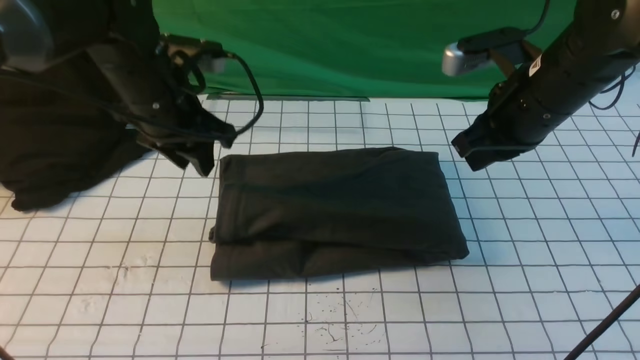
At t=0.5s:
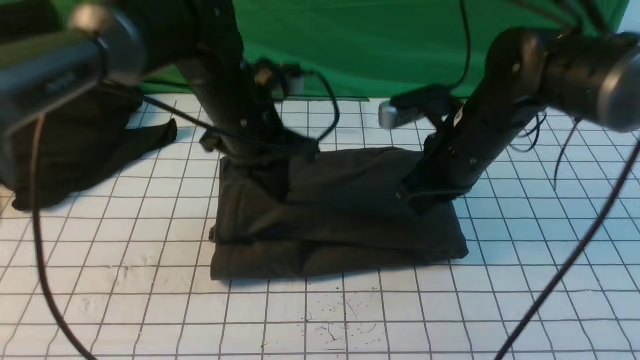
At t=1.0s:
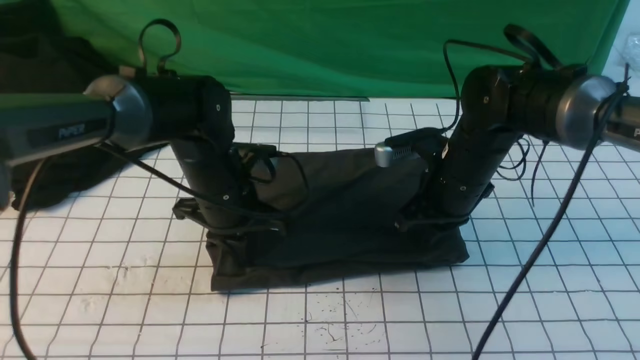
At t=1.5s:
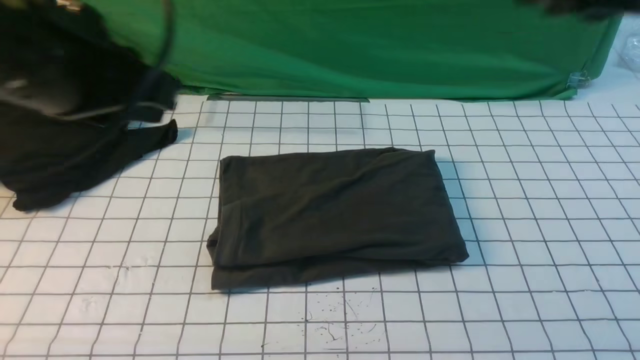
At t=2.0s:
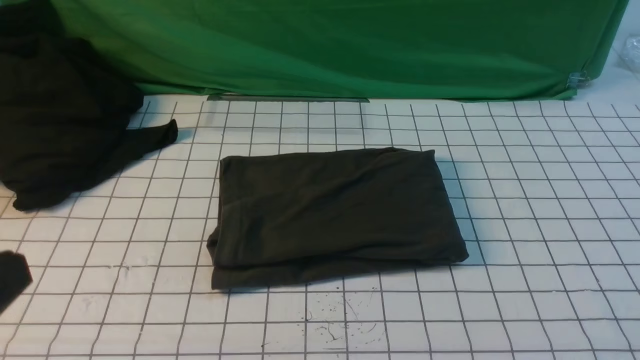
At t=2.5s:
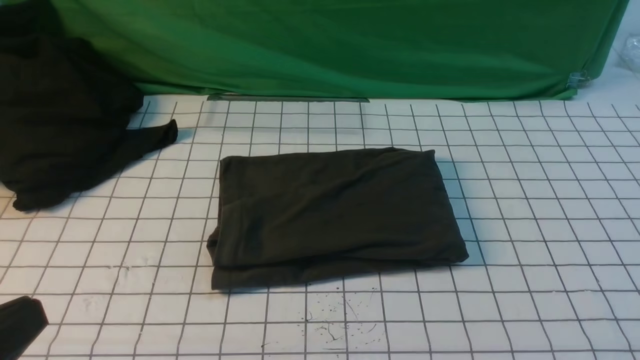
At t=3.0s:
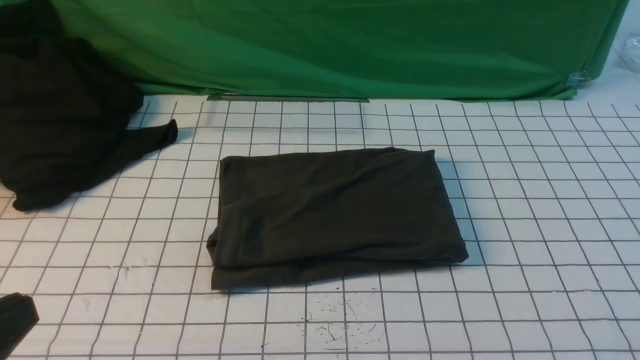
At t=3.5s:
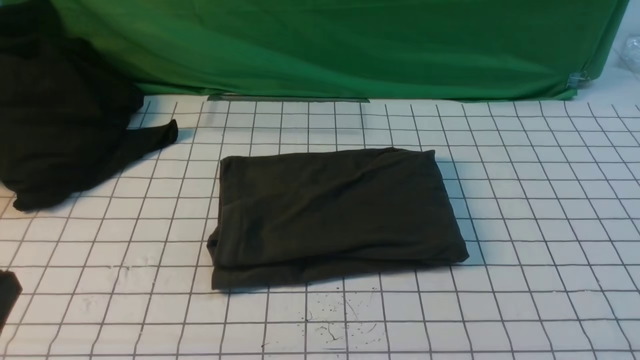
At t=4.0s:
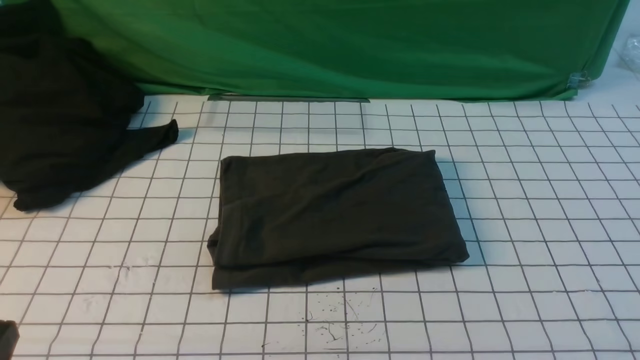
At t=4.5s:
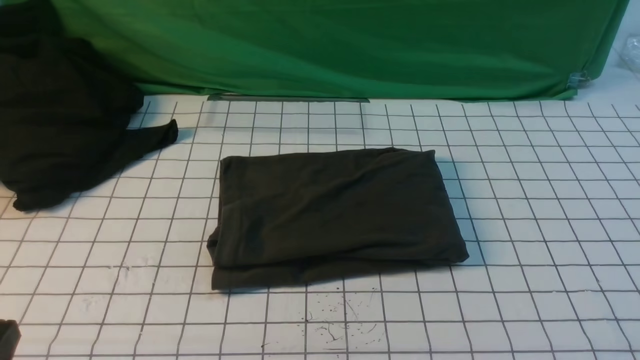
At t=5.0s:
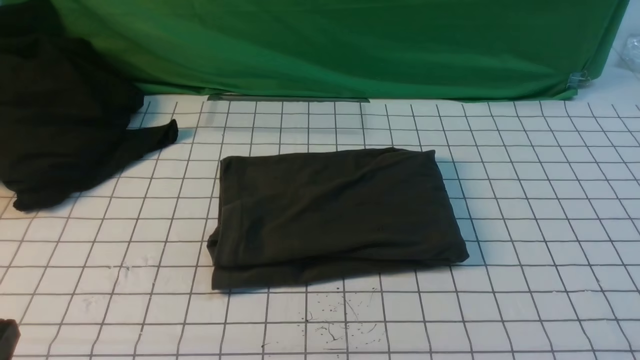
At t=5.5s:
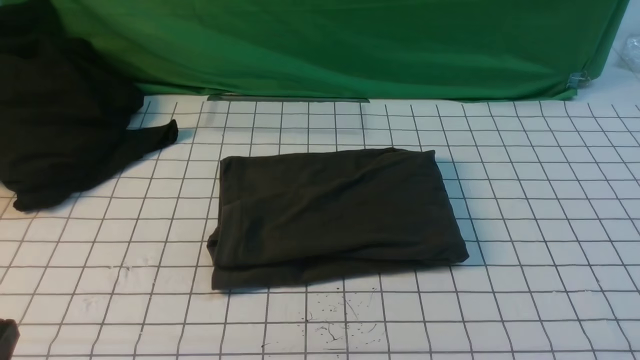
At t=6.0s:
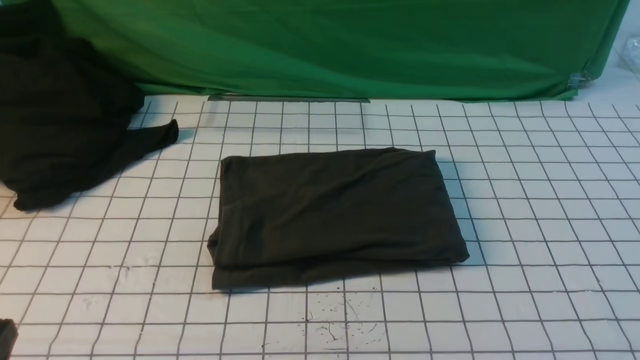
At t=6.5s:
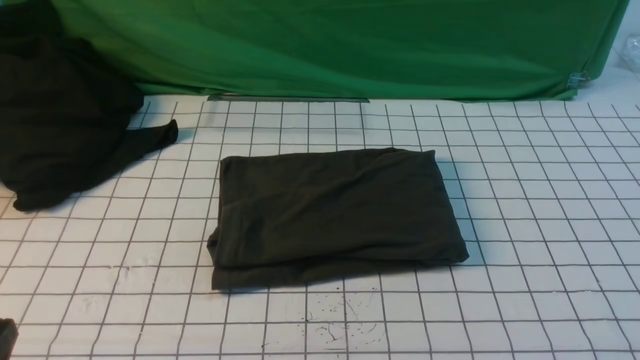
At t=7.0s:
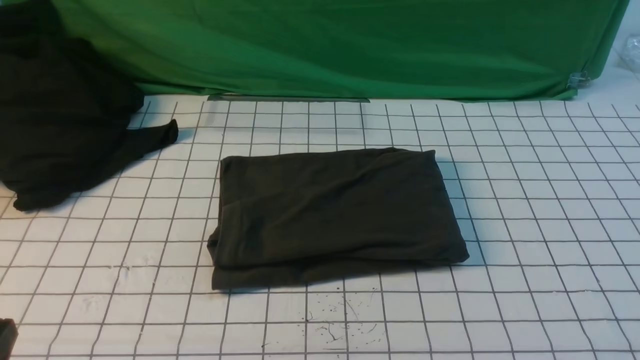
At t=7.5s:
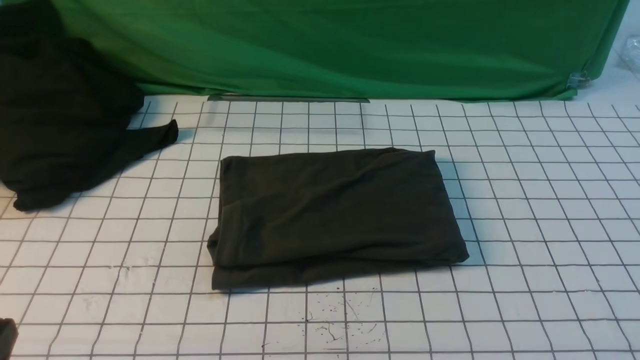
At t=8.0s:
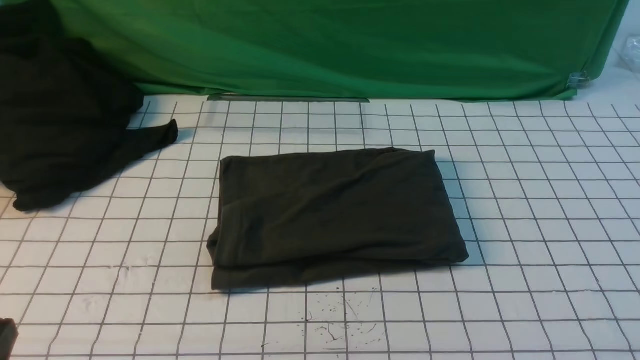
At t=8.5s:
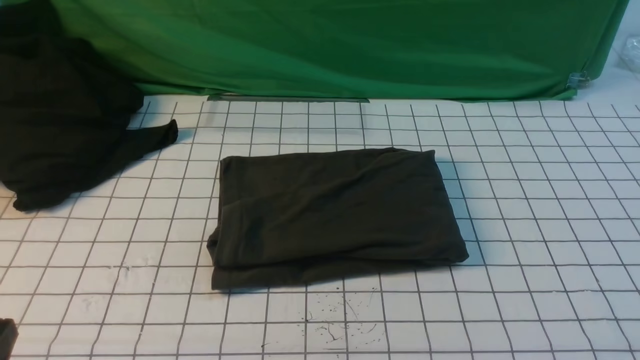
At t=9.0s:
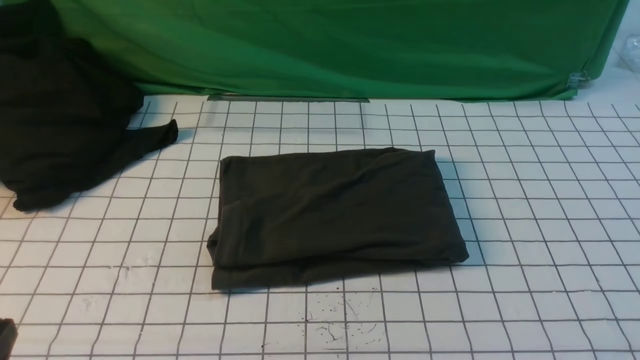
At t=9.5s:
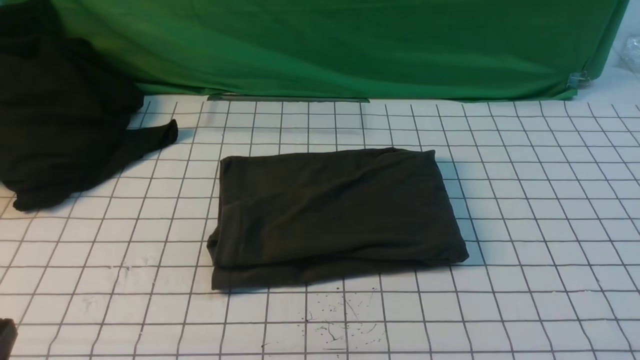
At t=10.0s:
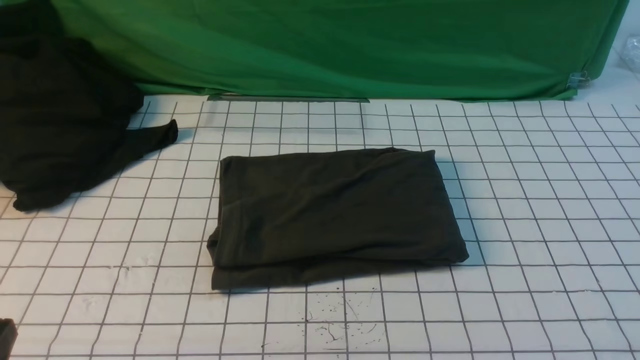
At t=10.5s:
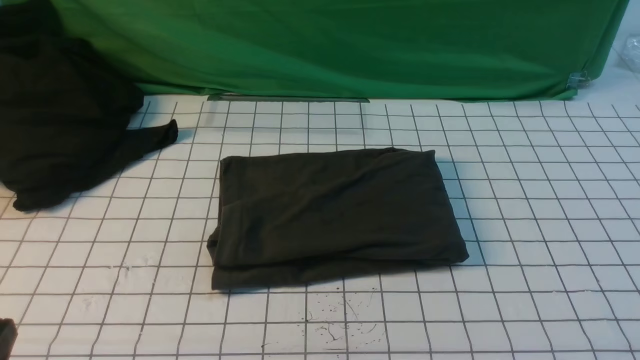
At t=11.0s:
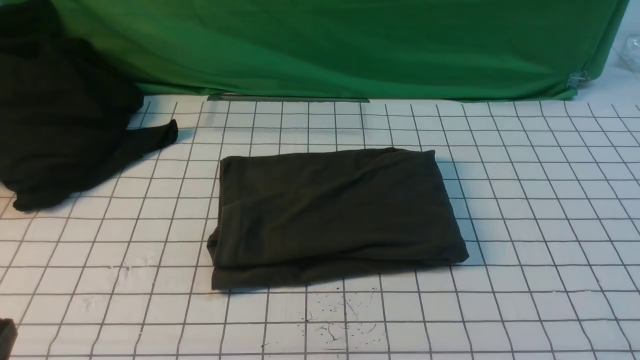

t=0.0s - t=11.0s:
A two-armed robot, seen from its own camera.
t=0.0s - t=2.0s: The two grippers go about 30 cm backward. The left gripper closes up.
t=3.5s - t=5.5s: The left gripper heads downward, covering roughly 5 cm.
t=9.0s - t=11.0s: The two grippers keep their place.

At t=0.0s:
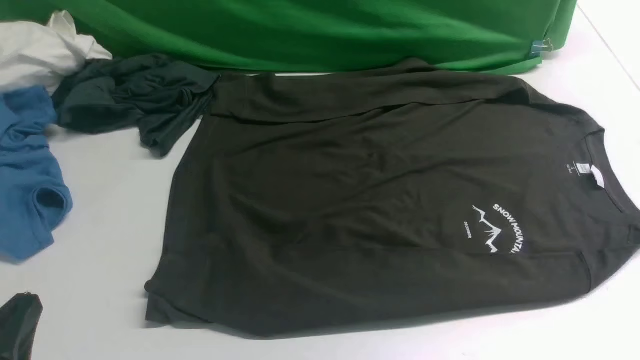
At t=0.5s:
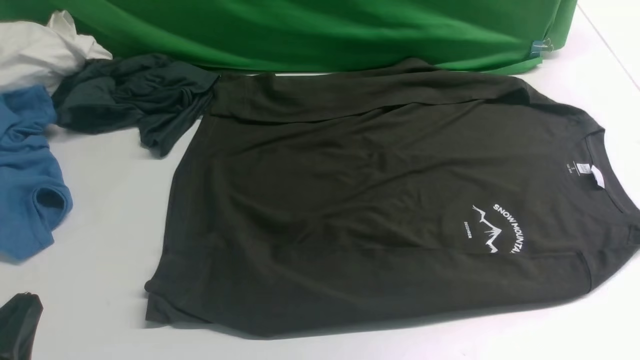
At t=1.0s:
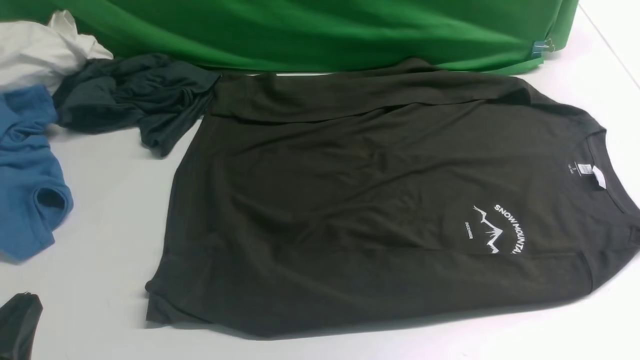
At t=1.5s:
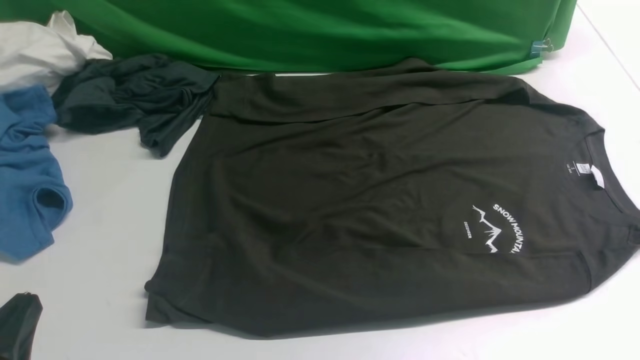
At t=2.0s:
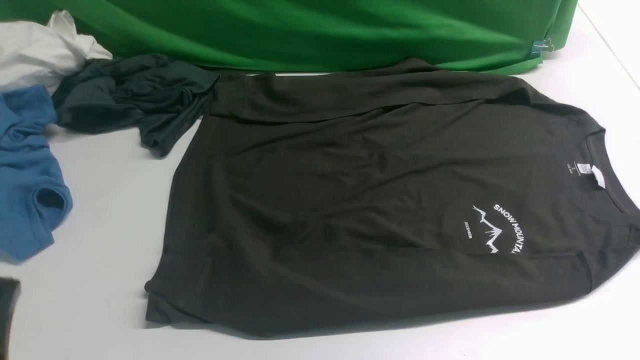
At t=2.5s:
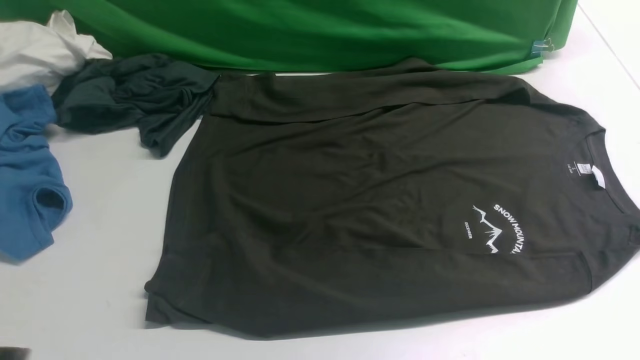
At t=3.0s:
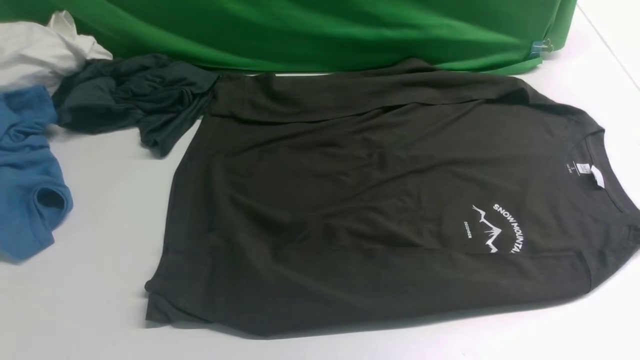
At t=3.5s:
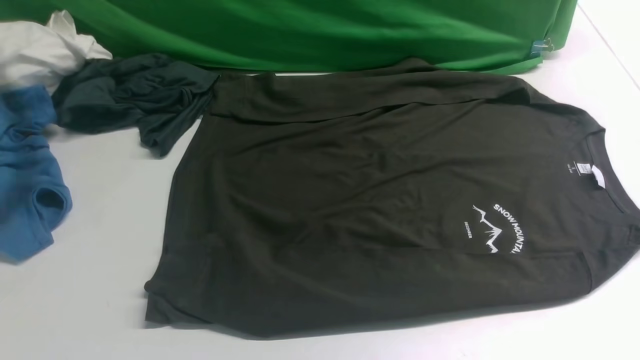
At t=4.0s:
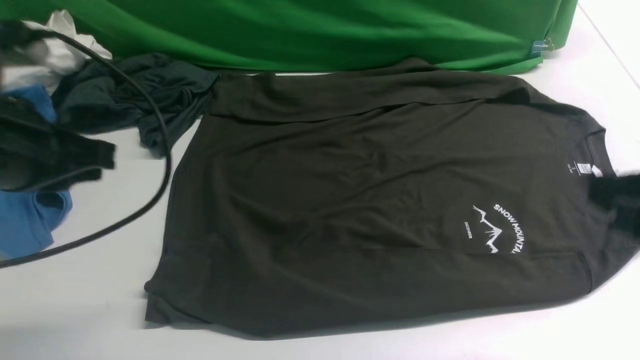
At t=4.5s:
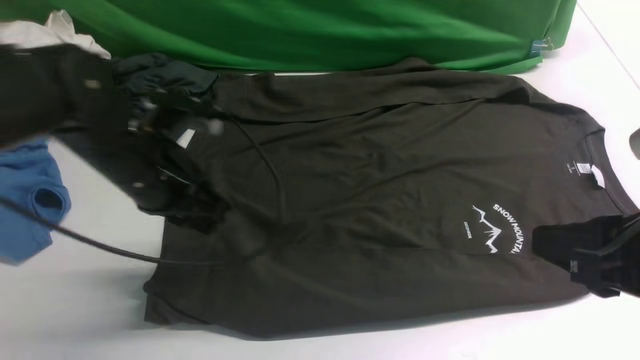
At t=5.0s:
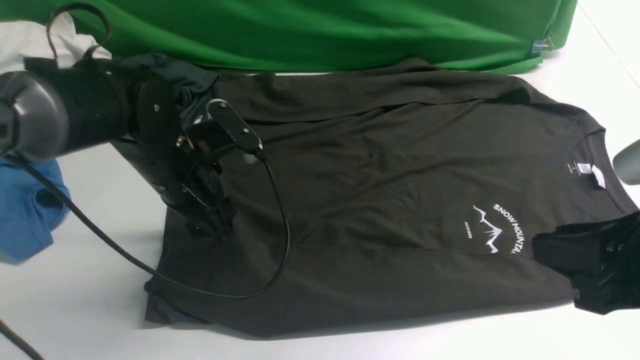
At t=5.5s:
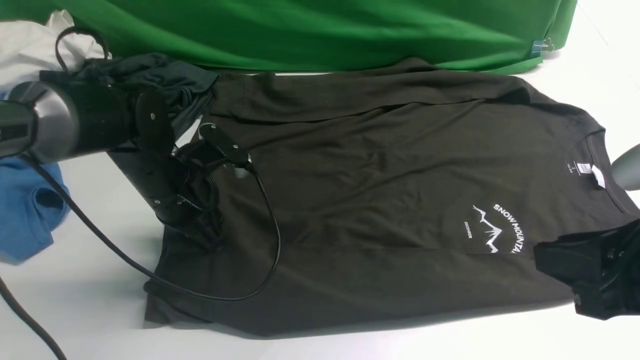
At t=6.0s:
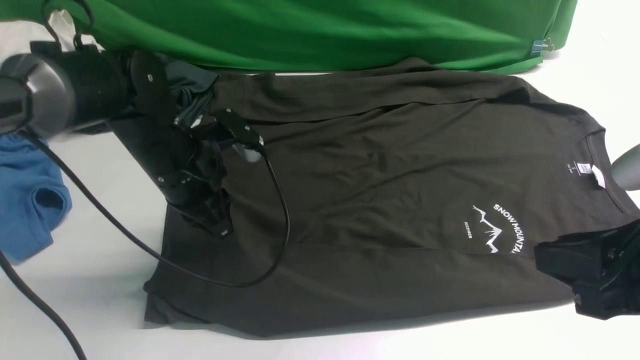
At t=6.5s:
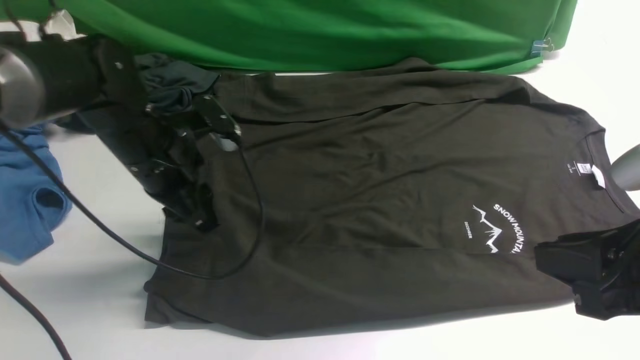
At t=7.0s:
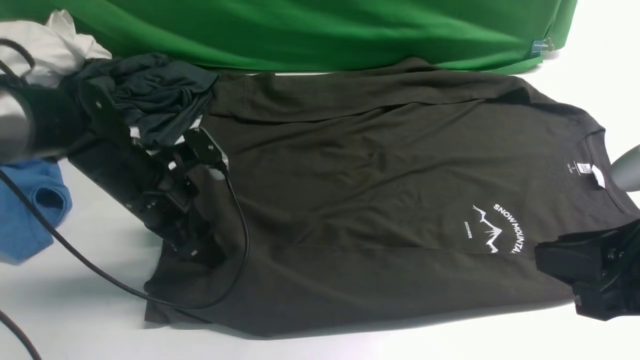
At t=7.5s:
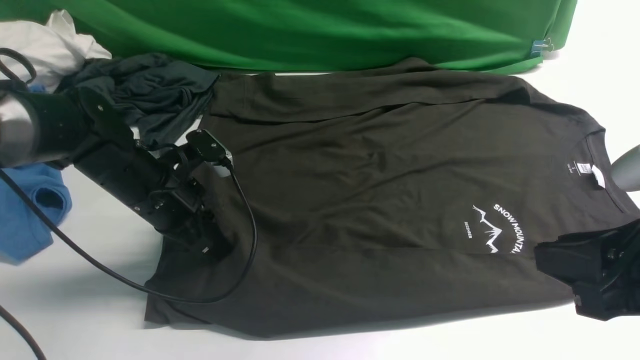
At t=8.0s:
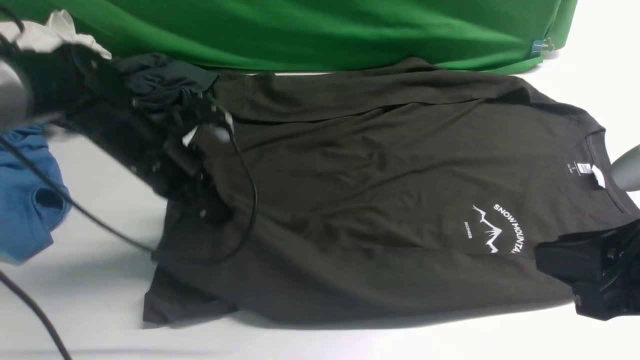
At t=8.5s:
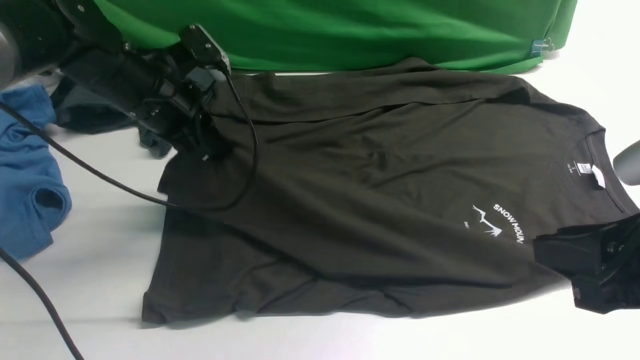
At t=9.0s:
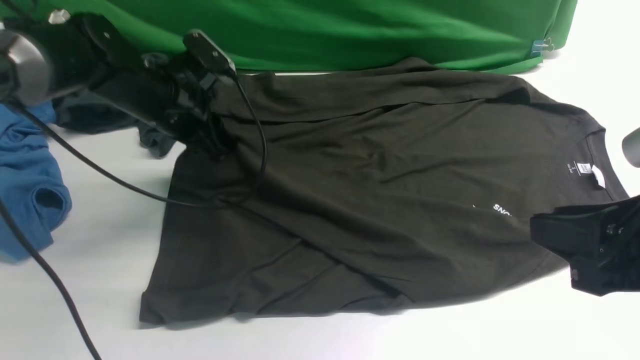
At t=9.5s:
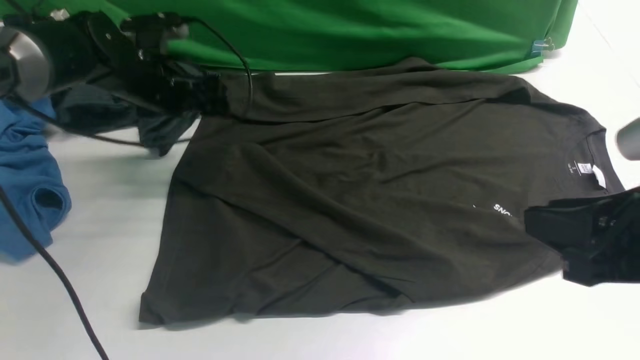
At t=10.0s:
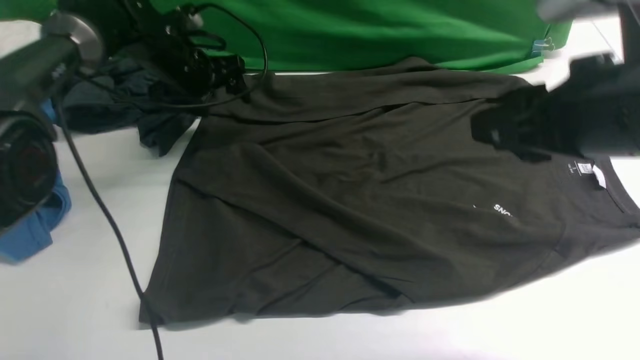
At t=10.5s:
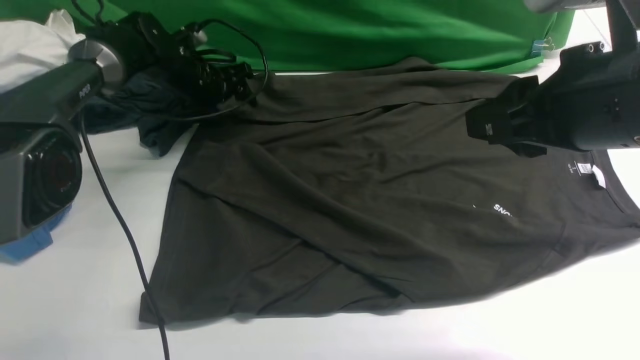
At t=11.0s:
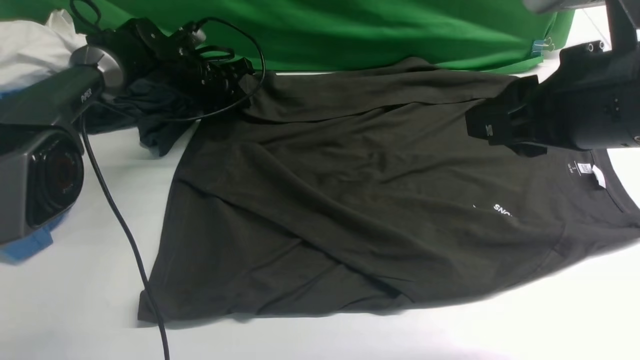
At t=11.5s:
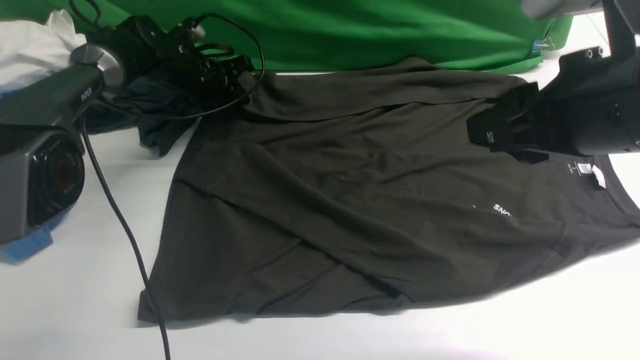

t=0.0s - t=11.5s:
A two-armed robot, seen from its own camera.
Step, t=0.0s - t=7.5s: use the left arm to clamp the cuff closest to it.
Step, t=8.5s - t=9.5s: use the left arm to drag and place the cuff at the centered position on the left edge of the fabric.
t=0.0s - t=2.0s: The grippers make only small movements.
t=2.0s - t=4.0s: The left gripper travels forward and upward by approximately 20 cm; the right gripper heads upward, forward and to the left, covering about 15 cm.
t=4.0s - t=6.0s: The left gripper heads downward, forward and to the right, covering some 20 cm, and opens, then closes once more.
t=6.0s - t=7.5s: The left gripper shifts by roughly 5 cm, and opens, then closes again.
t=7.5s - t=9.5s: The left gripper goes about 15 cm forward and upward, and opens up.
t=9.5s - t=11.5s: The right gripper goes about 10 cm forward and upward. Meanwhile the left gripper shifts about 10 cm forward and downward, and closes up.
